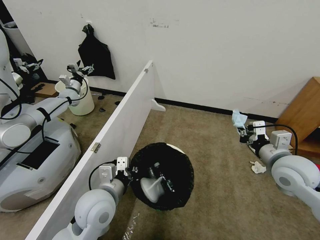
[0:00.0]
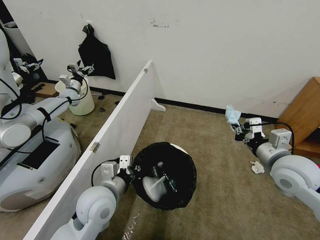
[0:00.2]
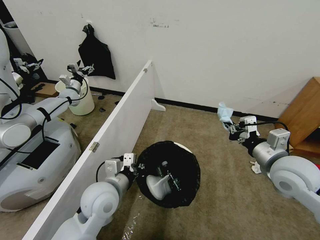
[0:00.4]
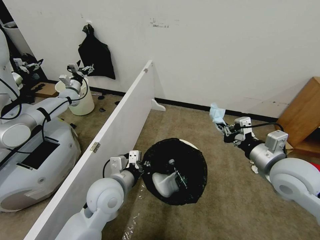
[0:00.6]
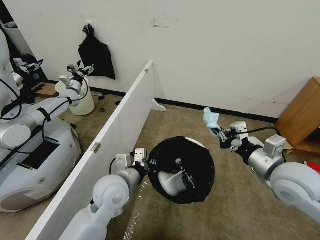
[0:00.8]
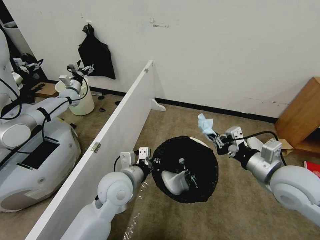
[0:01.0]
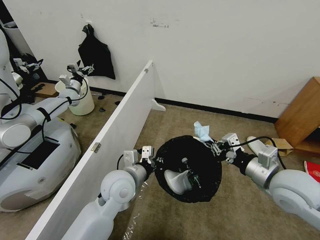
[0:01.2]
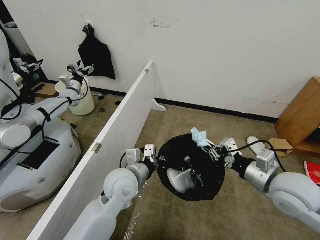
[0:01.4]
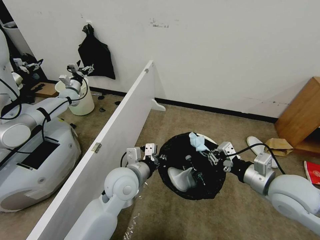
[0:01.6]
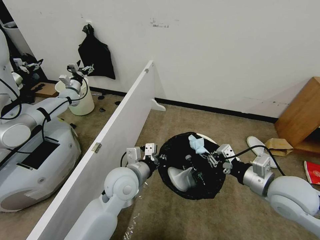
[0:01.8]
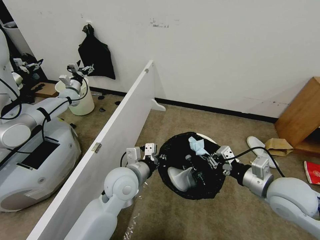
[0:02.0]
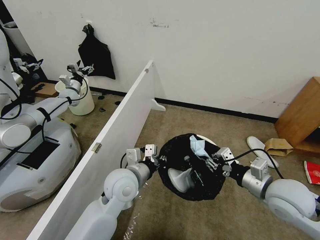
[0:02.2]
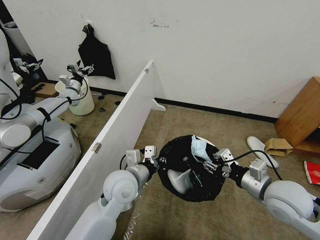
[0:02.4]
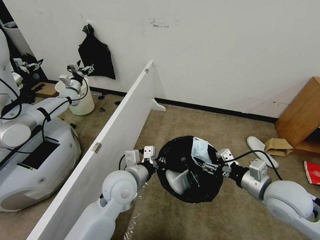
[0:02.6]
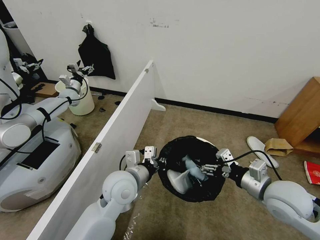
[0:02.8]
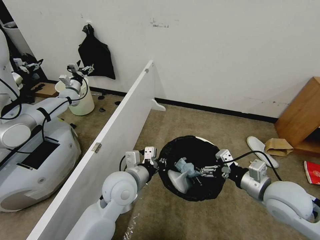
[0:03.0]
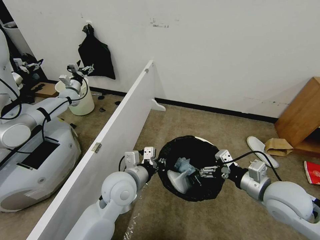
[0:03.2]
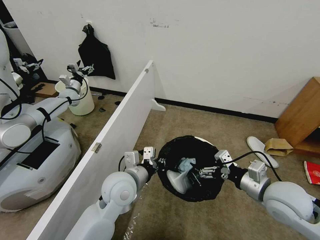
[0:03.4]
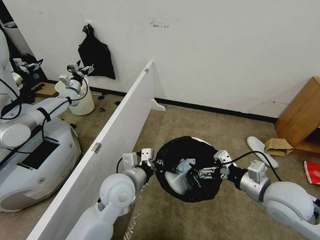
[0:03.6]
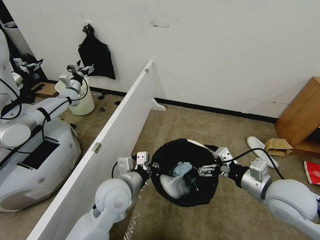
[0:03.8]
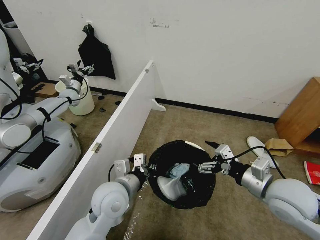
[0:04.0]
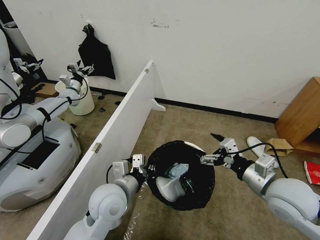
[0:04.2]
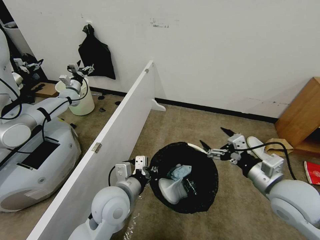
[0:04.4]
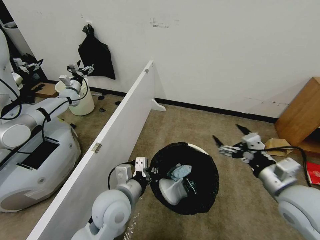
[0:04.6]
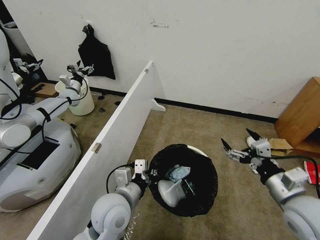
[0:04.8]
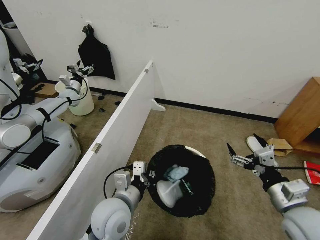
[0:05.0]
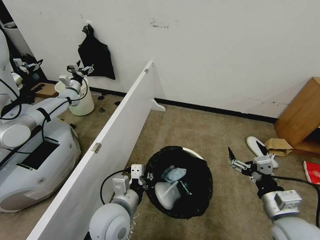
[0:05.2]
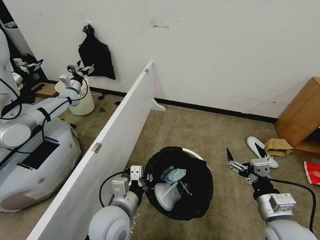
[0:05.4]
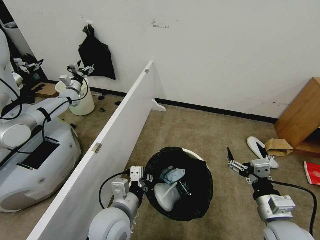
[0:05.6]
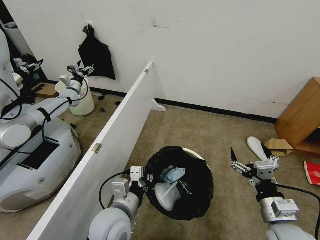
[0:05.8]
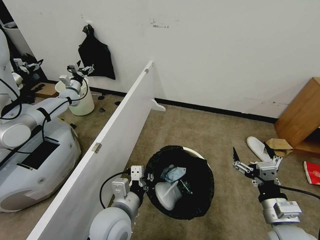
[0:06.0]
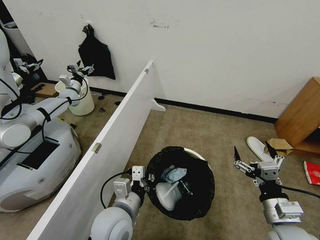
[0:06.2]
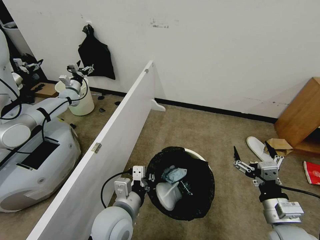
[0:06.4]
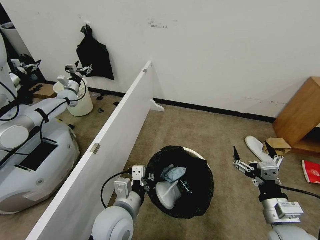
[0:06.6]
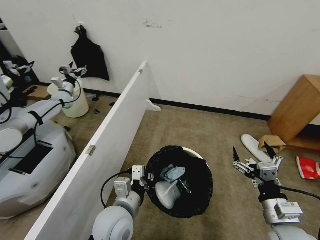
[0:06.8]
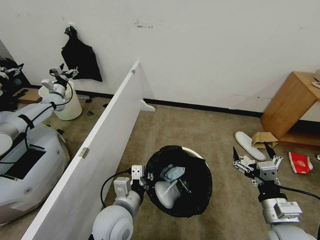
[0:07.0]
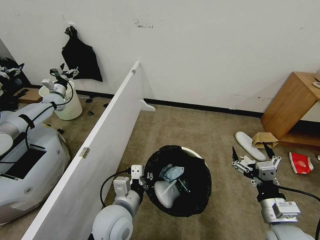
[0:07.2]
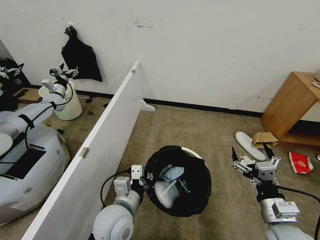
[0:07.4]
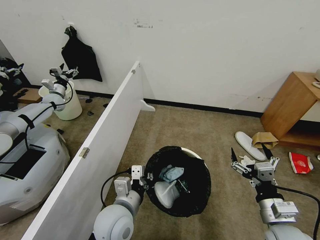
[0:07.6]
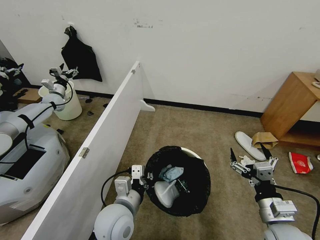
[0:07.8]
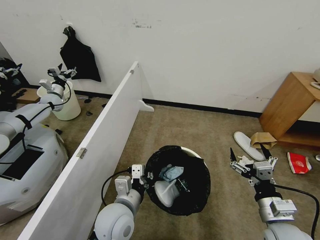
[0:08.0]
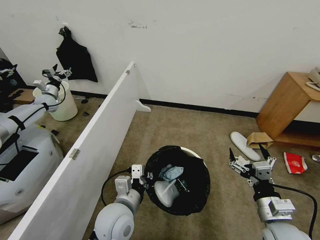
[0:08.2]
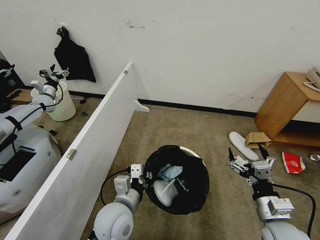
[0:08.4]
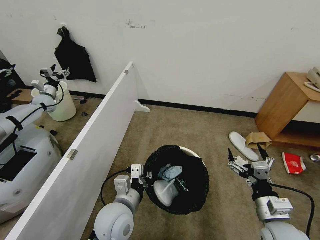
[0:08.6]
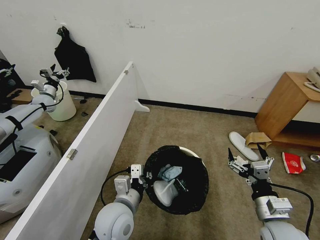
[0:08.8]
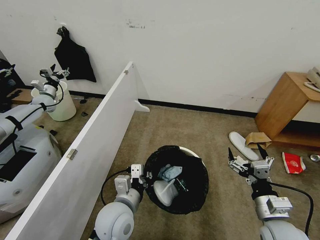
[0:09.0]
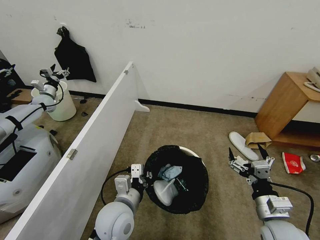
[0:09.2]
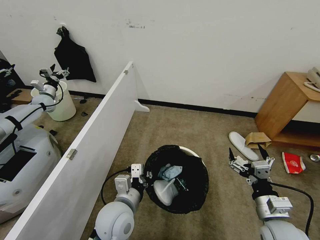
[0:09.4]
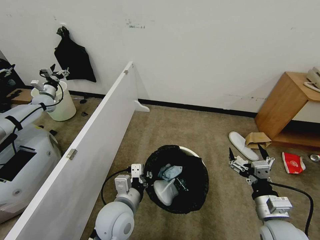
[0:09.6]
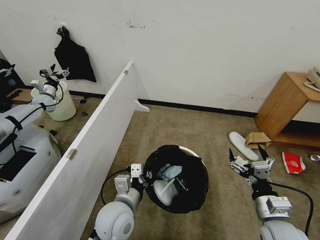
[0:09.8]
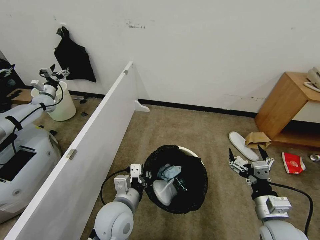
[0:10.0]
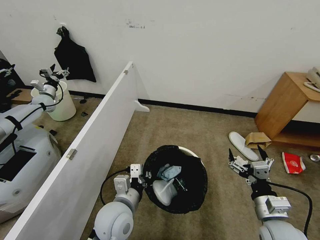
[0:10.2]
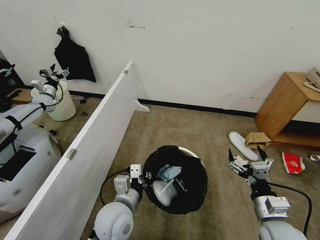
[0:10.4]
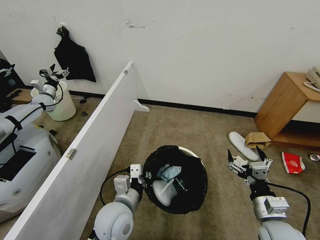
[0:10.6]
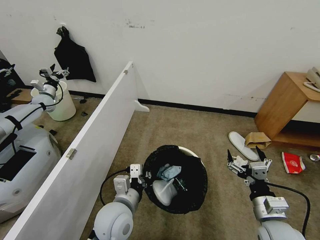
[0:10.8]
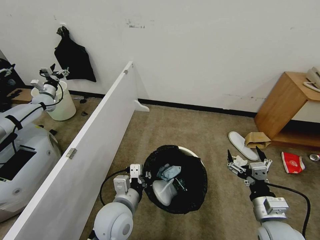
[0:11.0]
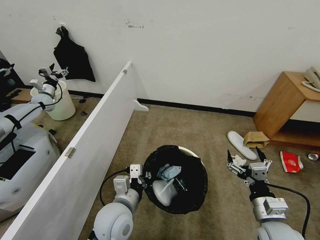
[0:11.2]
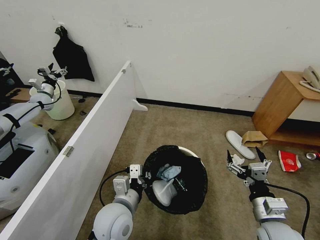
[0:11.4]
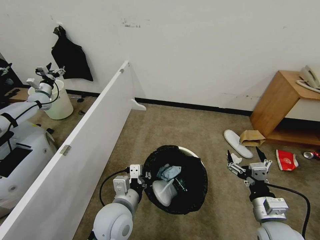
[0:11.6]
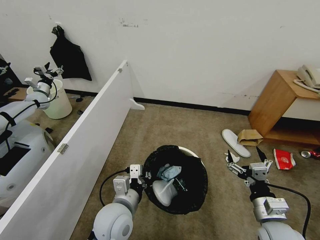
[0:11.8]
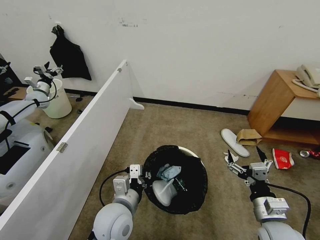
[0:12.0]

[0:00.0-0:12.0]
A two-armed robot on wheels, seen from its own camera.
Task of the whole recording: Pick up the trash bin, then pick up the garbage from the floor and place it into the trash bin.
0:00.0 to 0:01.6: The left gripper goes approximately 10 cm forward and to the right, while the right gripper is displaced backward by approximately 5 cm.
0:01.6 to 0:03.0: The right gripper opens up.
0:03.0 to 0:04.4: The grippers move only a little.
0:04.4 to 0:06.0: The left gripper moves approximately 5 cm; the right gripper is displaced downward and backward by approximately 10 cm.
0:09.0 to 0:10.4: Neither gripper changes place.

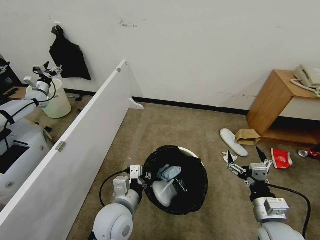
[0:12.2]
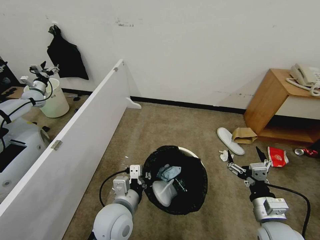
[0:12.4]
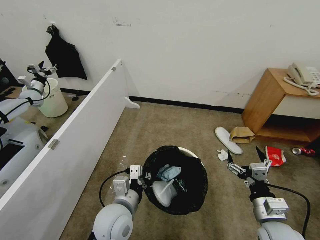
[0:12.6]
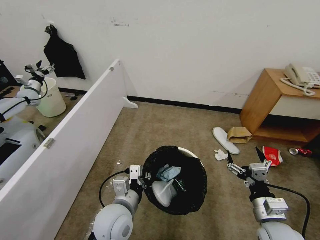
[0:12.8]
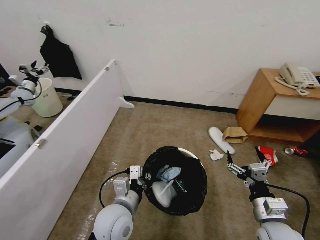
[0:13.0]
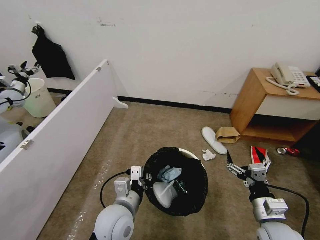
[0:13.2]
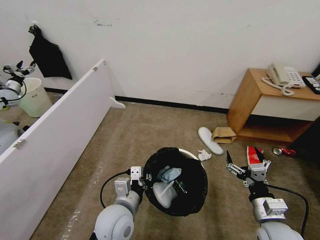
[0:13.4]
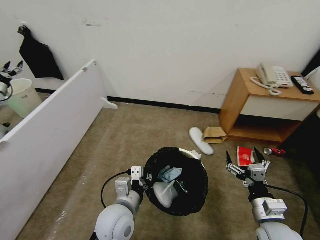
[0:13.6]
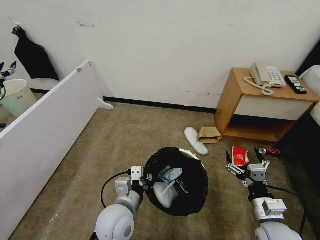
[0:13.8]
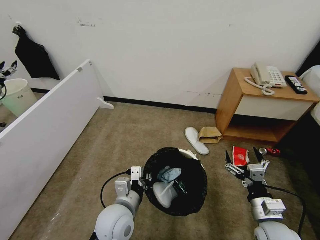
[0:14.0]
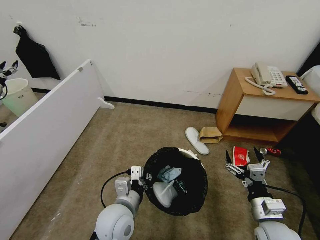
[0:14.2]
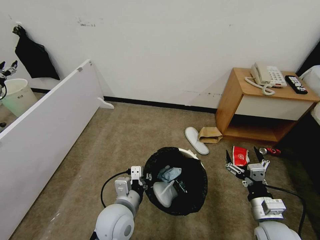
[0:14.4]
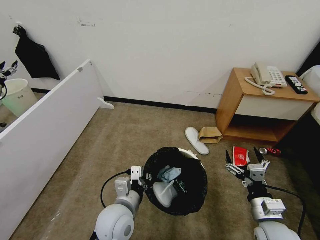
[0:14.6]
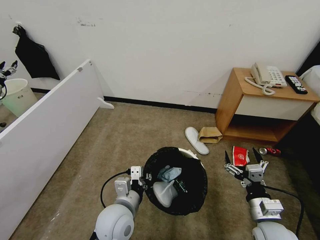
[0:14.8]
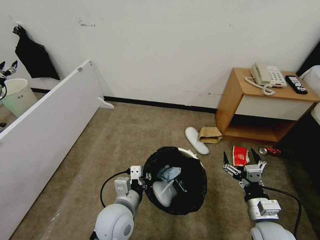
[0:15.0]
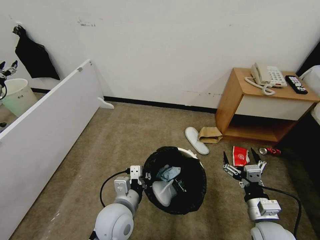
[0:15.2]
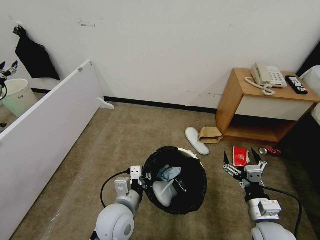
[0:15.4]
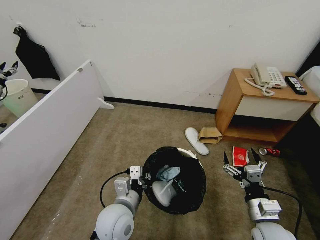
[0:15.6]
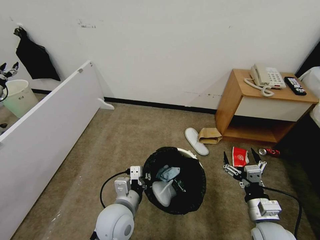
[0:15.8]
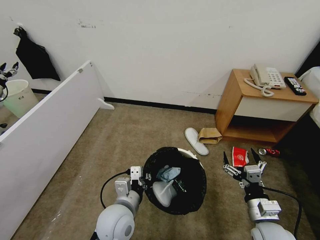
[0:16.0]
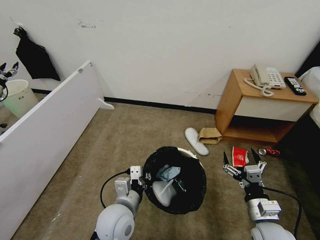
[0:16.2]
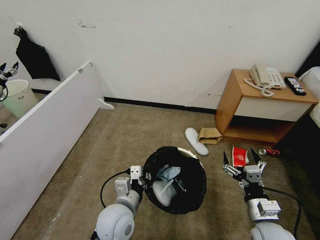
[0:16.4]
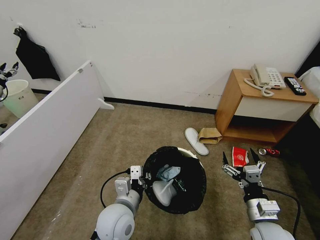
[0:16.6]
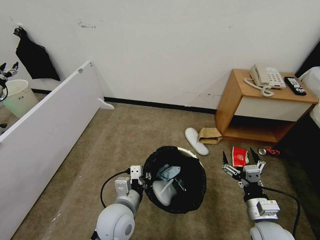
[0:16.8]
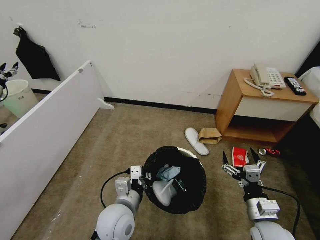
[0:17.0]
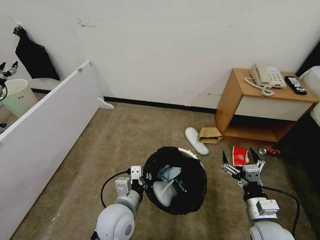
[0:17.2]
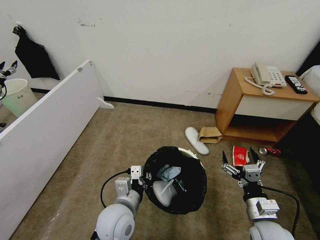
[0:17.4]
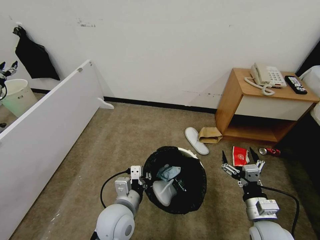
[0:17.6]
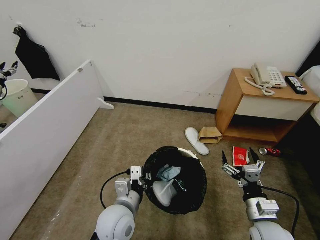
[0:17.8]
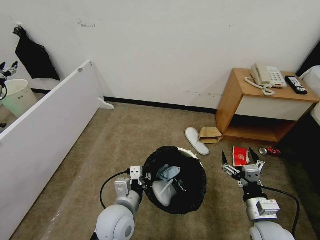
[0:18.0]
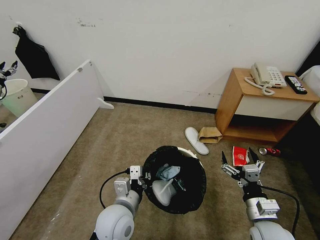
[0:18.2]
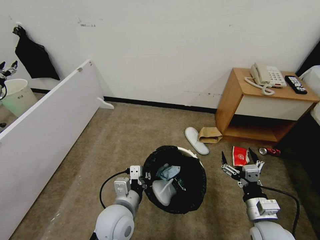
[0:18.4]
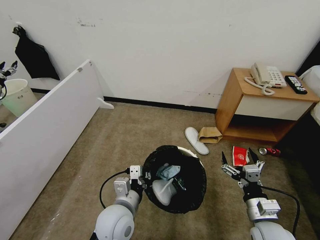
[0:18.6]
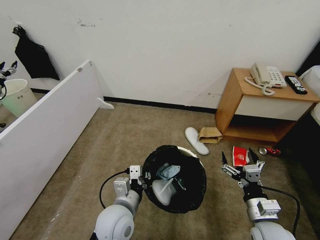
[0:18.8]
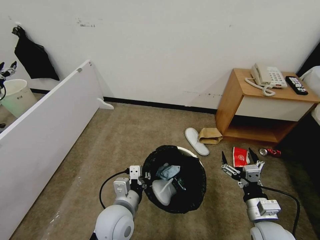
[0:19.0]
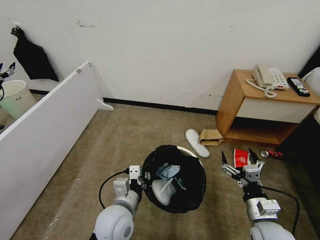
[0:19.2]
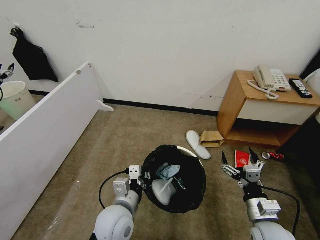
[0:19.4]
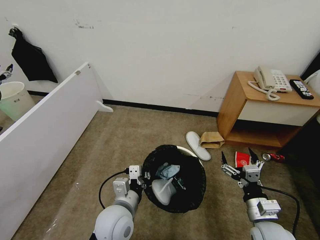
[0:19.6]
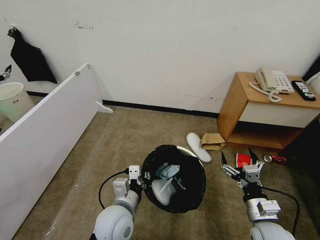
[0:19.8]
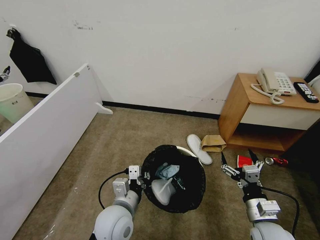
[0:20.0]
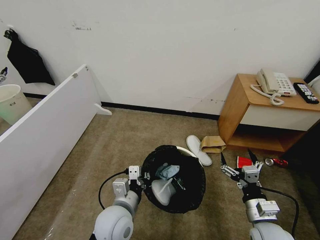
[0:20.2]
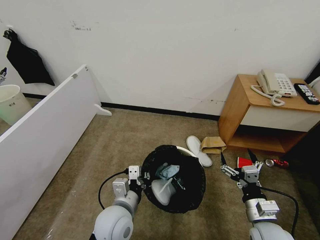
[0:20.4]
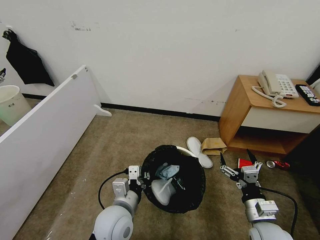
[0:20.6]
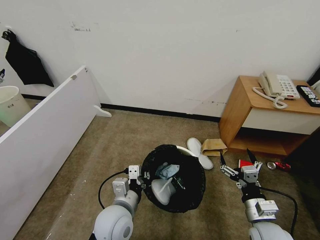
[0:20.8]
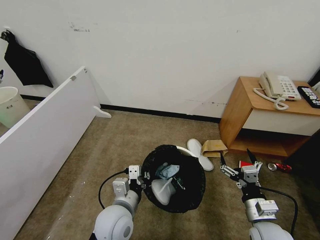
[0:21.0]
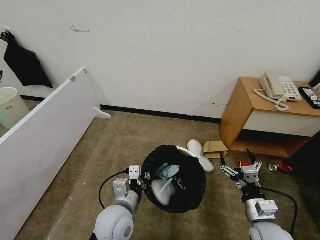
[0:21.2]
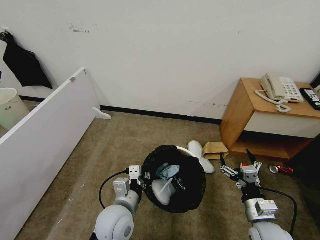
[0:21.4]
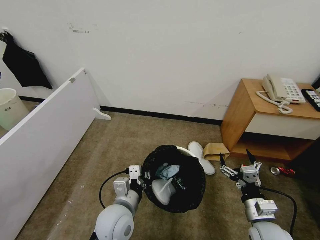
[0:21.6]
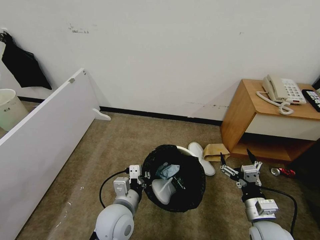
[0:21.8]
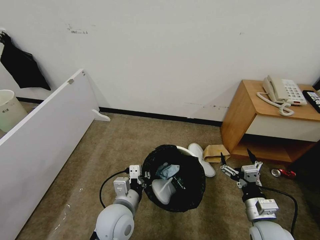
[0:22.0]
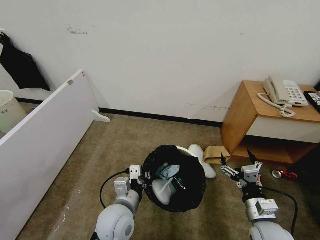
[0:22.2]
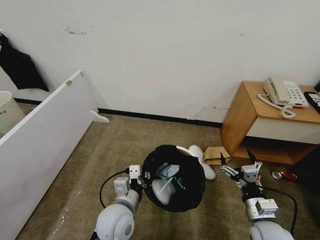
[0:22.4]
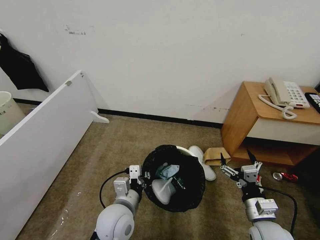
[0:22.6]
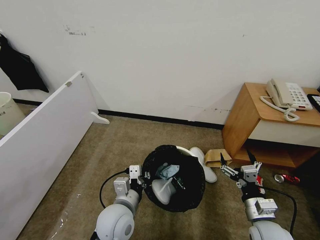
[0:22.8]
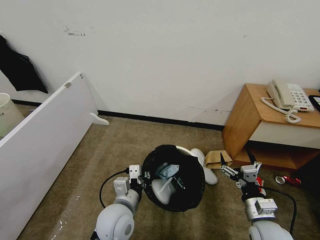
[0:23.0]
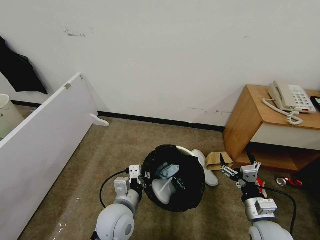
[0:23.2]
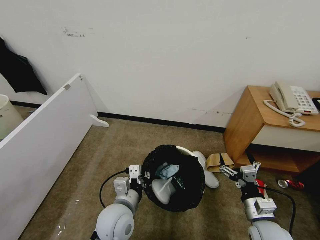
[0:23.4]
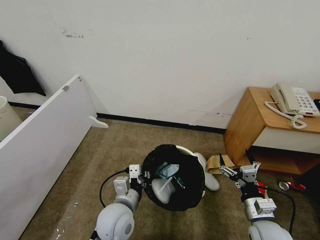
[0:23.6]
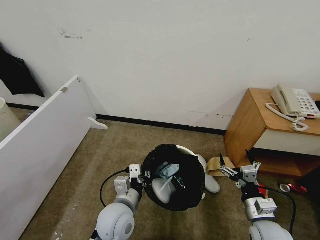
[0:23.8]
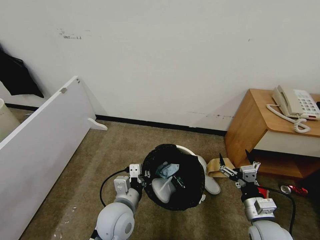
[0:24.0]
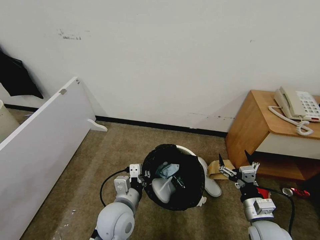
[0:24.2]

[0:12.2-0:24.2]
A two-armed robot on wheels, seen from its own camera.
Task of the whole recording: Pick up the trash bin, then pick up the garbage from the floor and place it into the trash bin.
0:13.8 to 0:15.2: Both grippers stay put.
0:15.2 to 0:24.2: Both grippers stay put.
